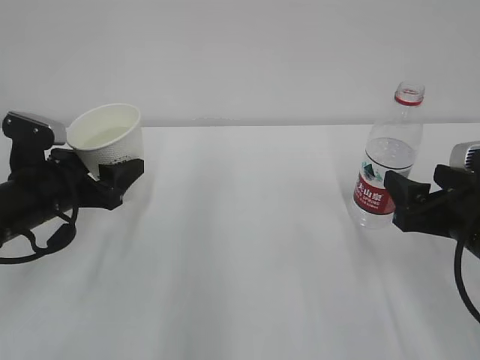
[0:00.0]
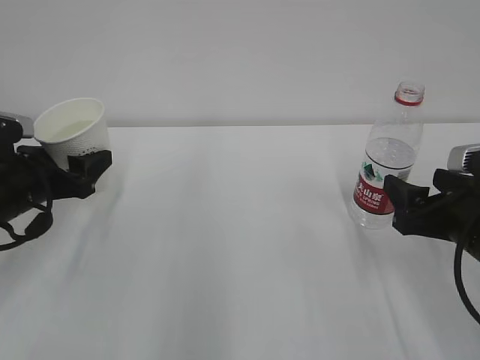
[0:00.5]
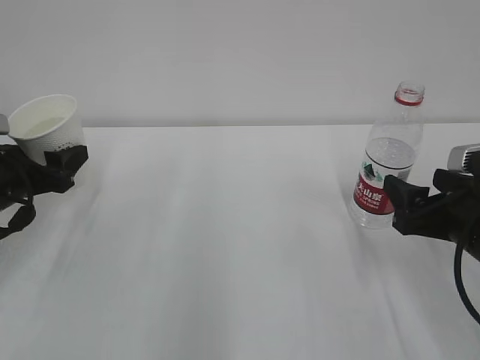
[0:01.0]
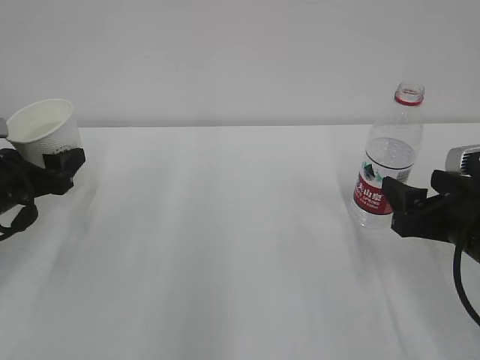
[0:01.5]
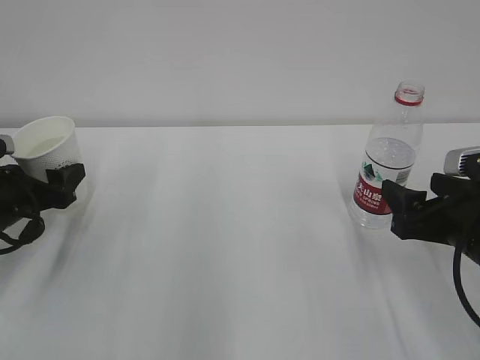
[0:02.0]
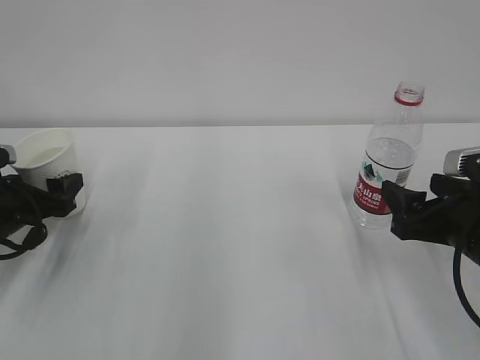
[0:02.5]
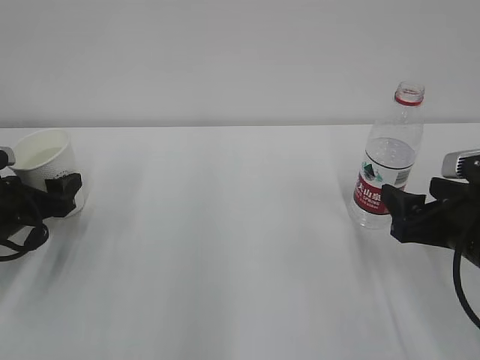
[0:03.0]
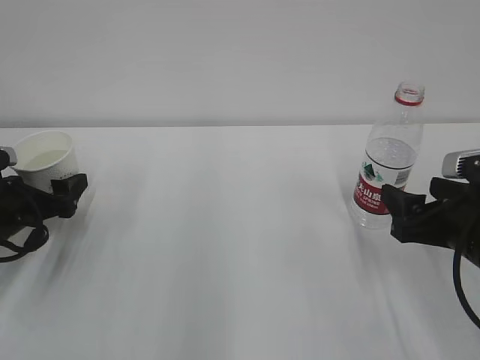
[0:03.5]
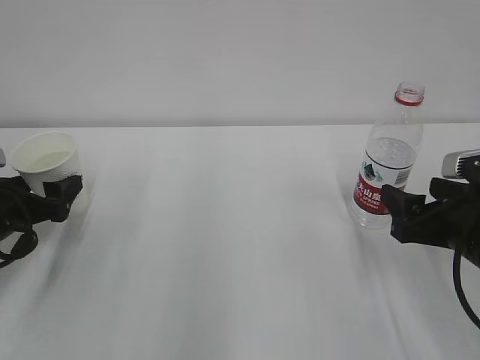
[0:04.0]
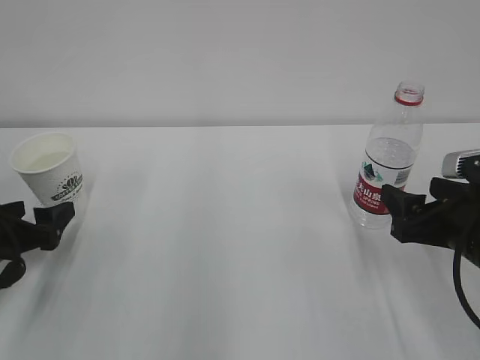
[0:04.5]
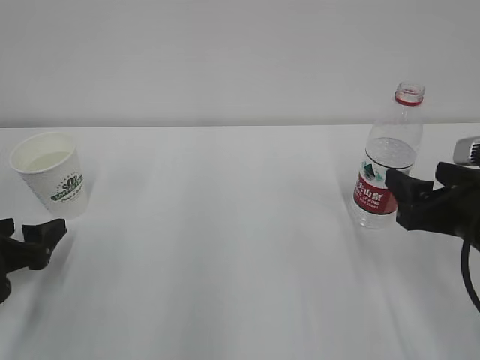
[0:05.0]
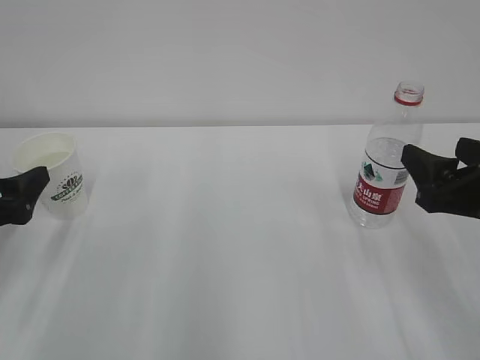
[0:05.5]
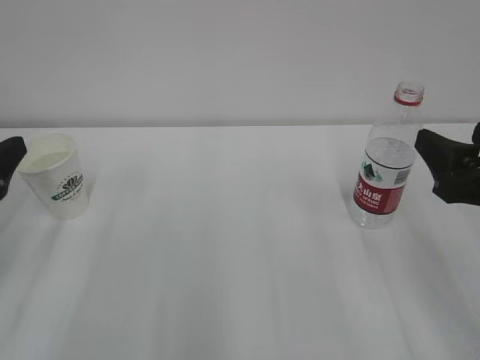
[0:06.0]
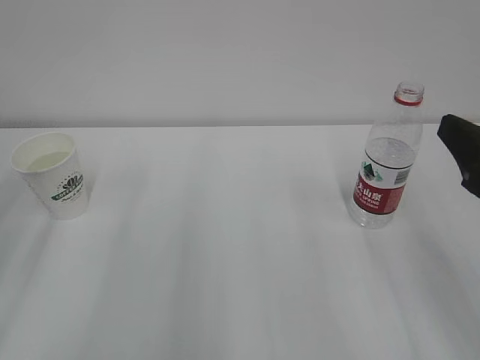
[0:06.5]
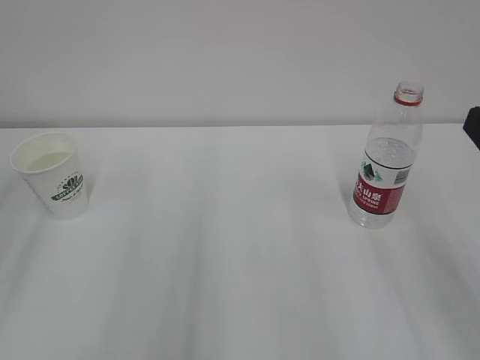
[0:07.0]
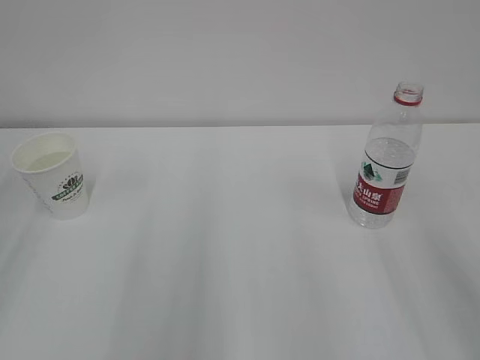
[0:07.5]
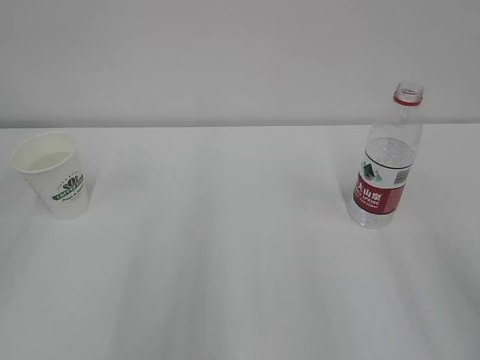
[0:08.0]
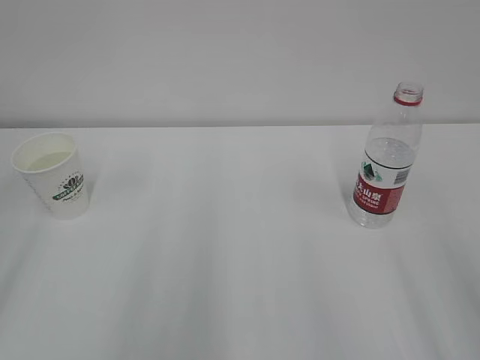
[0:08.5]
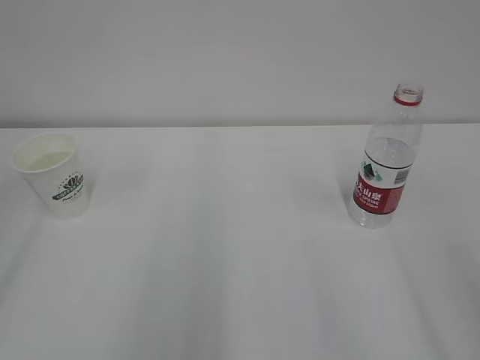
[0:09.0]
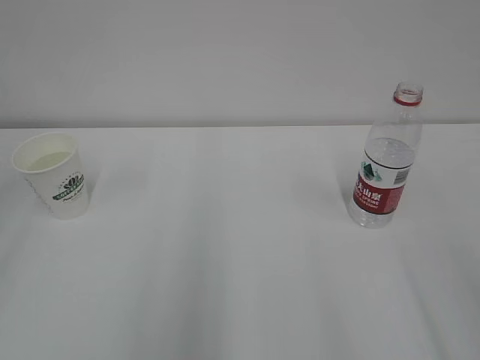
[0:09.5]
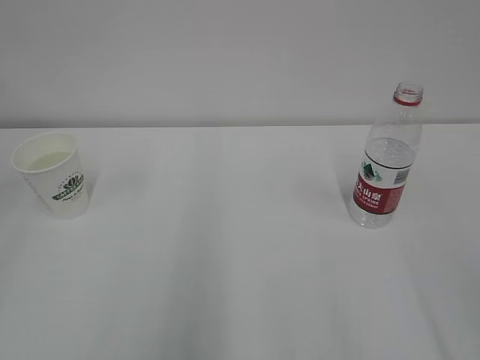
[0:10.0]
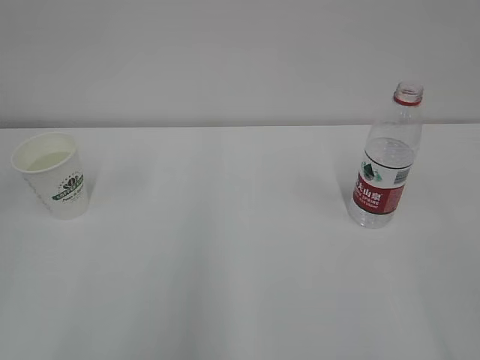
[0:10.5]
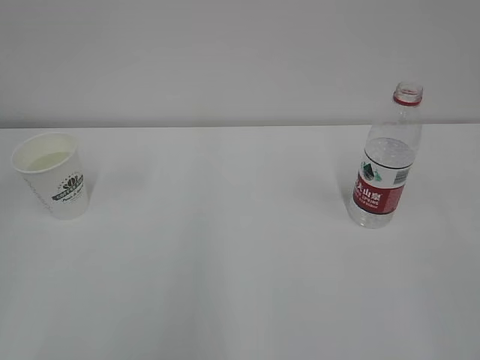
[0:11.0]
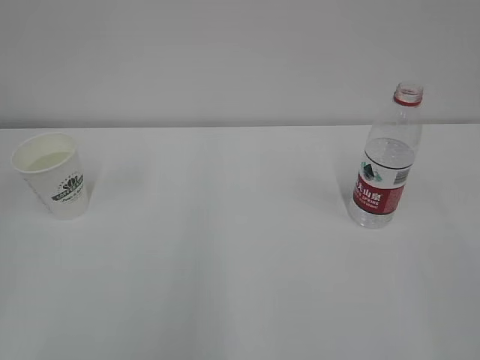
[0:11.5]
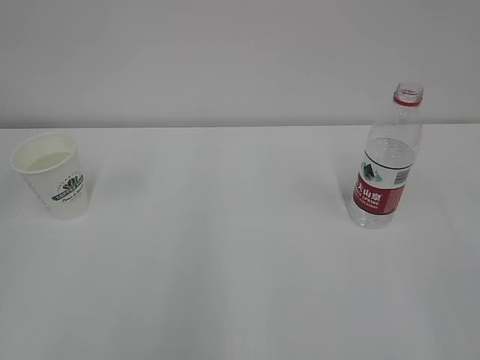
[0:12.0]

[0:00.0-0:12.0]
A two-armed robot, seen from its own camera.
0.0 to 2.0 s: The left gripper goes approximately 5 cm to the left.
2.0 to 4.0 s: The left gripper opens up.
4.0 to 6.0 s: The left gripper goes some 15 cm upward and backward, while the right gripper travels upward by some 10 cm.
6.0 to 8.0 s: The grippers both shift backward and upward by approximately 15 cm. The left gripper closes up.

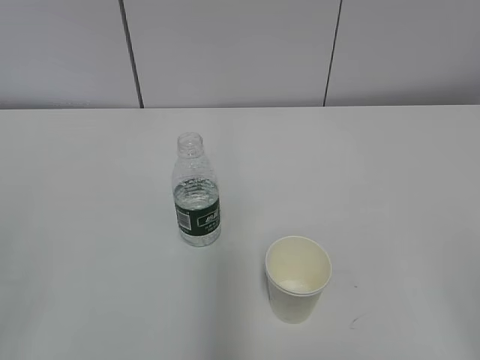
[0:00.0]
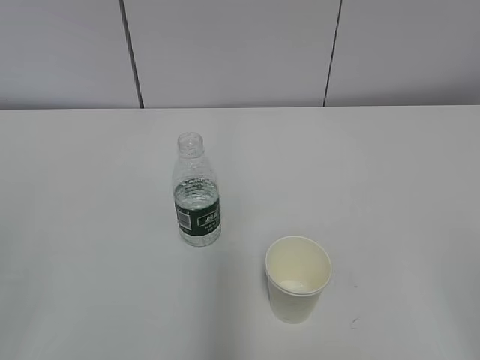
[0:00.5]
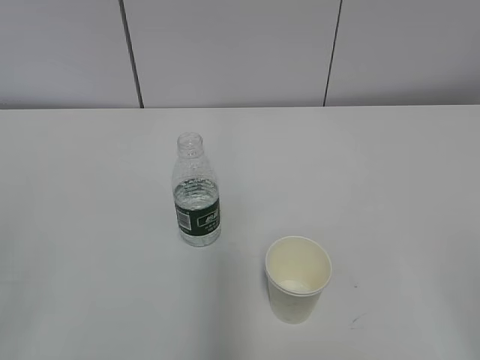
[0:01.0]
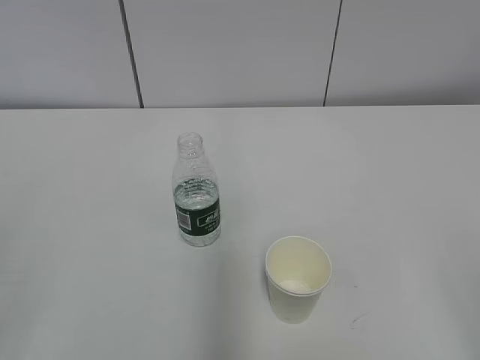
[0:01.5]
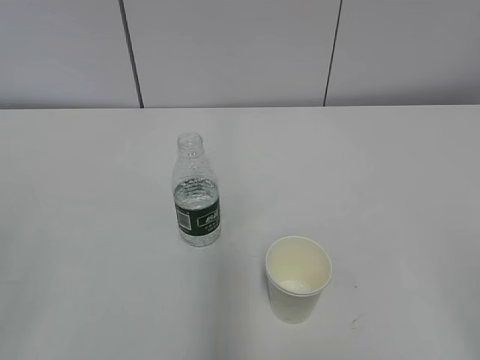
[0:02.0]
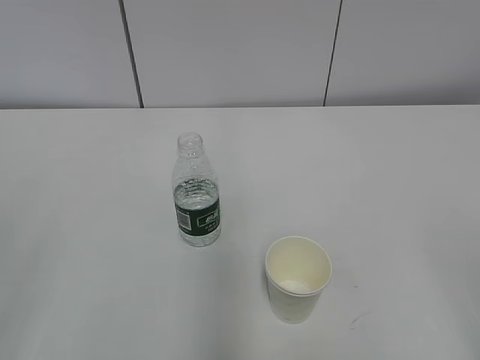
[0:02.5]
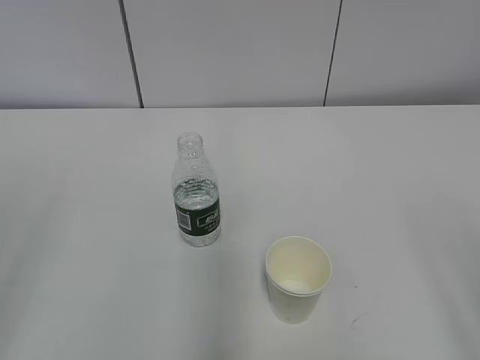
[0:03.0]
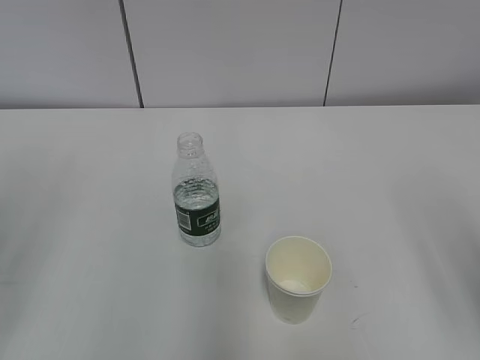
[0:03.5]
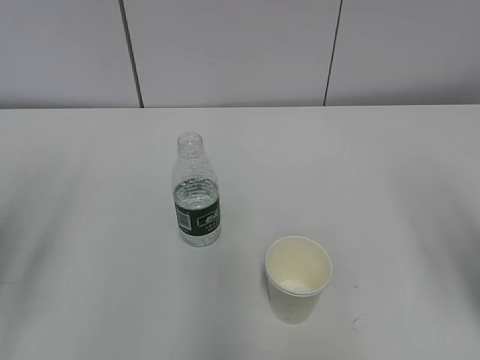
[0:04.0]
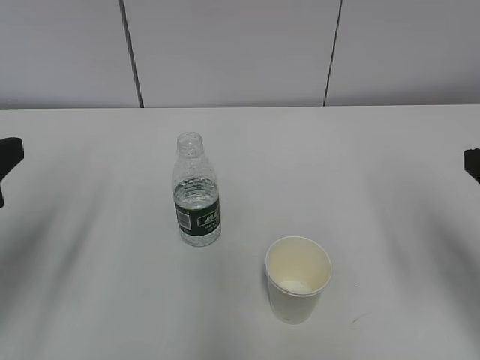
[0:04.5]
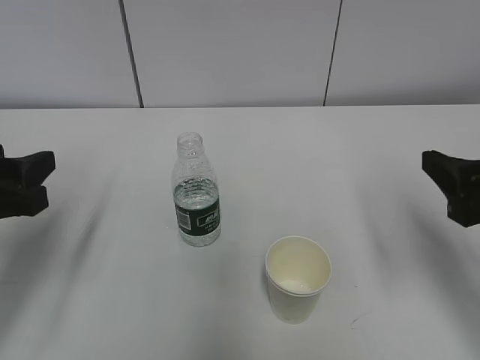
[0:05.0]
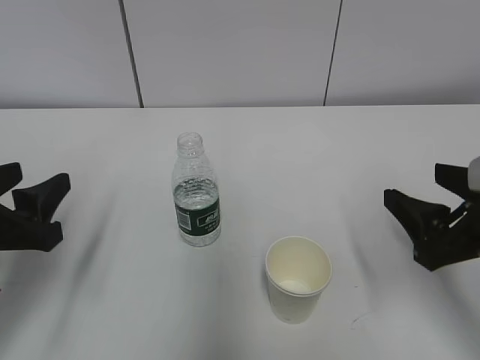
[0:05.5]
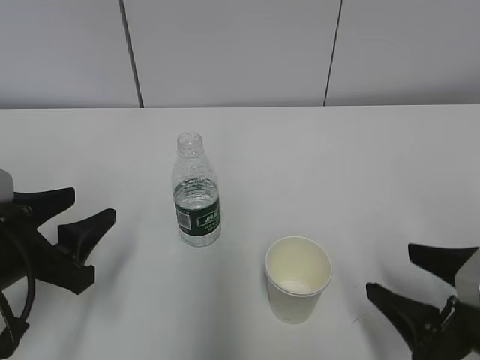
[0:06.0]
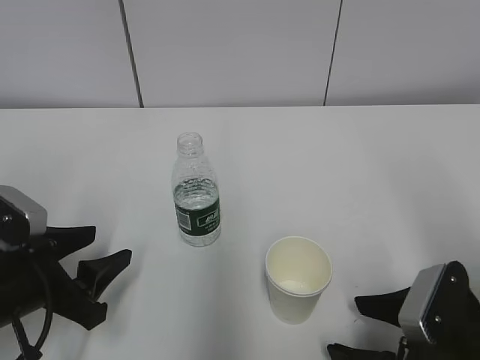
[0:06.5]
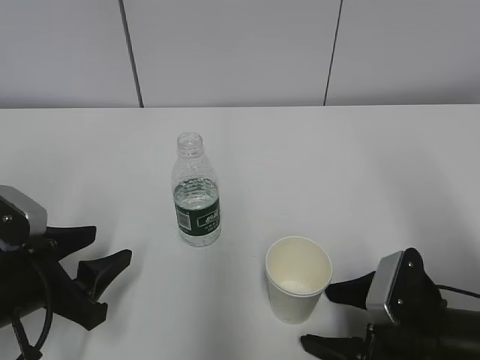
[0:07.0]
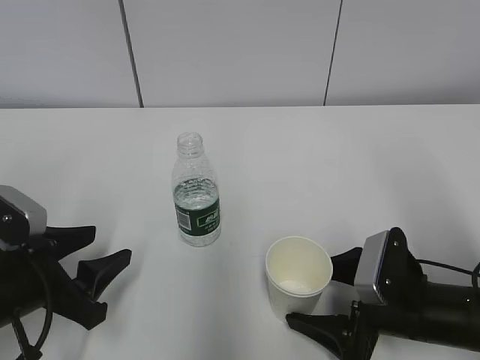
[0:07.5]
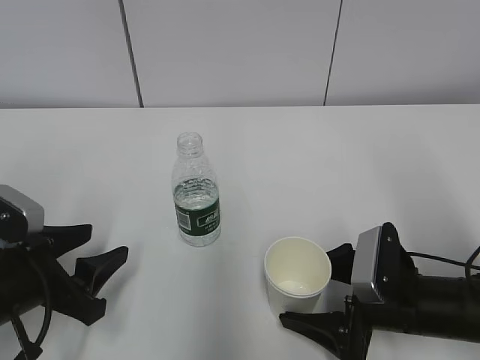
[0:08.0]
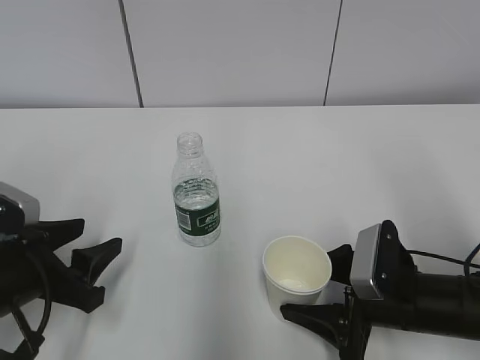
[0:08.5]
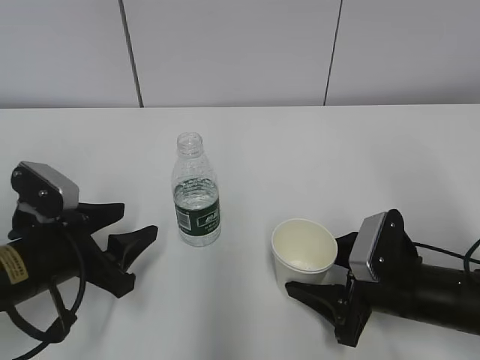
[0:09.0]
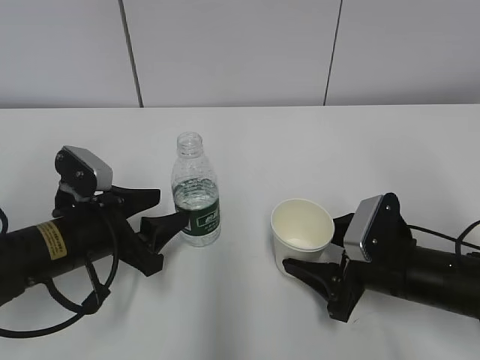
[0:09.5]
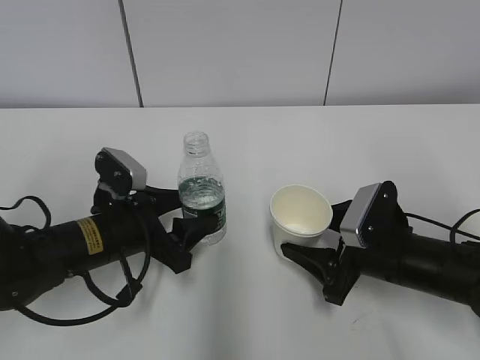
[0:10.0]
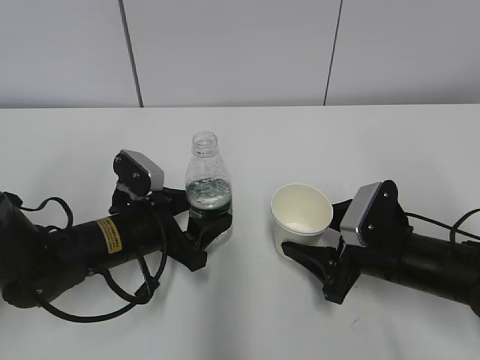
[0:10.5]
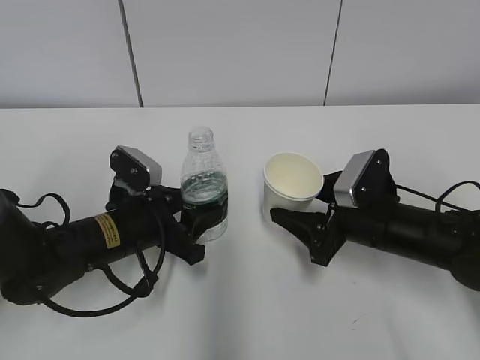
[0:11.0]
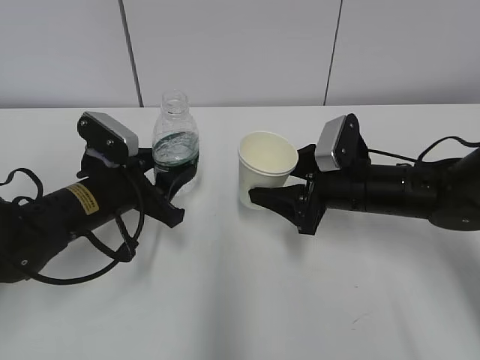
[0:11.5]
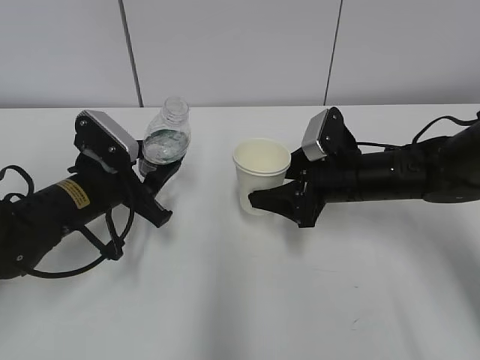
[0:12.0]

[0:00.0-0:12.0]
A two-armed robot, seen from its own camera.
Step, 0.0 to 6.5 s: Grab the paper cup with the right hand.
Step, 7.0 to 9.0 s: Grab the water bottle with the left hand.
2.0 to 4.0 s: The right gripper shifts some 15 cm forward.
4.0 to 6.0 s: The left gripper is displaced downward, forward and to the right by about 15 cm. Meanwhile the right gripper is displaced downward by about 15 cm.
6.0 to 8.0 s: The right gripper shifts roughly 10 cm forward and downward.
8.0 to 10.0 s: The left gripper is displaced forward and to the right by roughly 10 cm; the right gripper closes up.
10.0 to 12.0 s: The right gripper travels forward by roughly 10 cm. Meanwhile the left gripper ends up about 5 cm from where it was, and closes up.

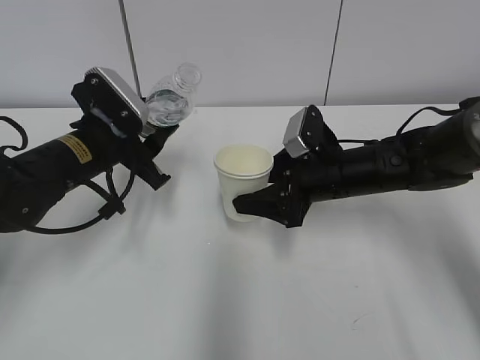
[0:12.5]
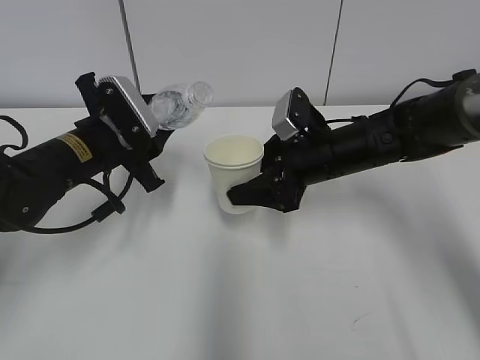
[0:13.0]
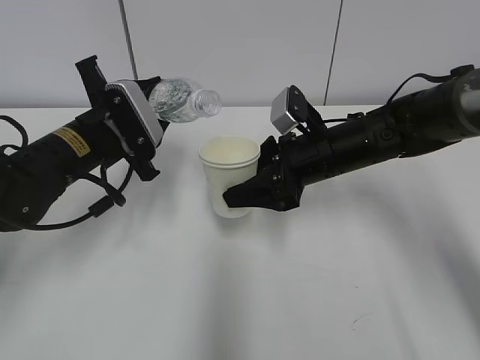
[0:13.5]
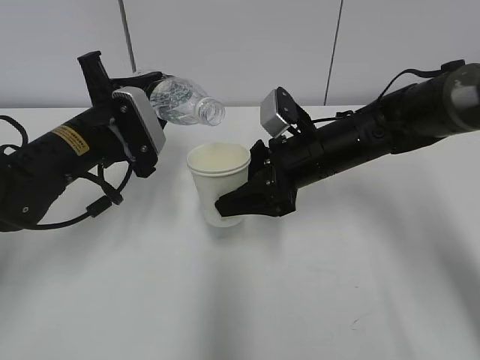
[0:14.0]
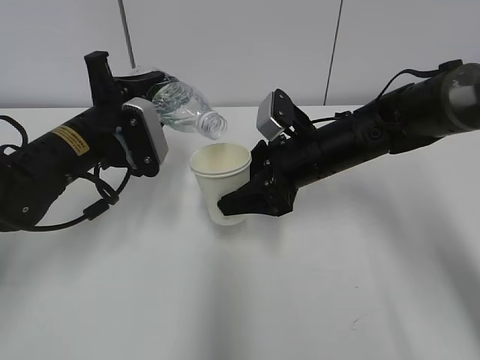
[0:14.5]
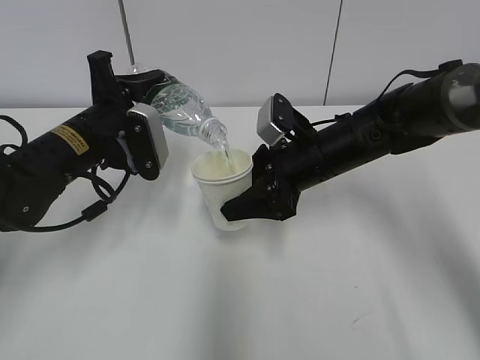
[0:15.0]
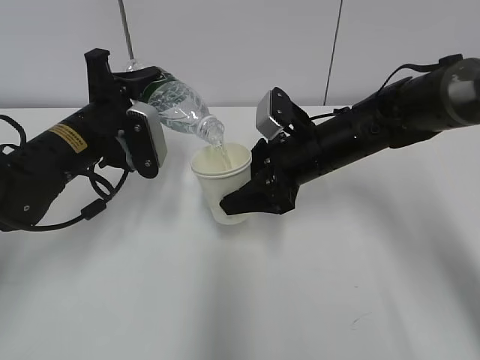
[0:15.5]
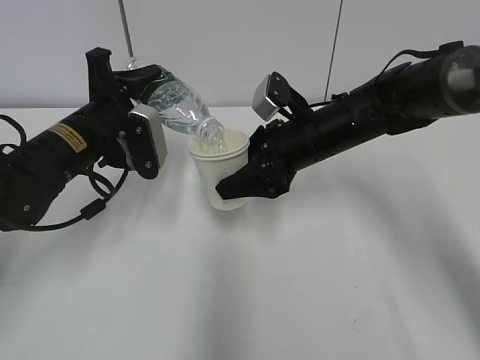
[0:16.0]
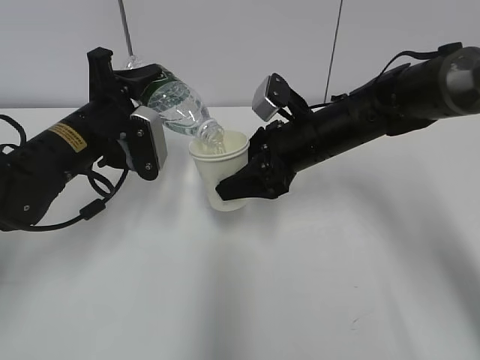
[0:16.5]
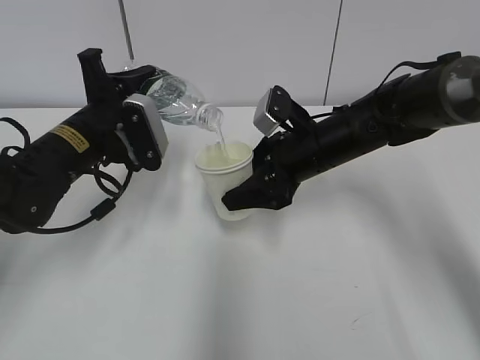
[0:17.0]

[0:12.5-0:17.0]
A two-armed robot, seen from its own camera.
Step, 12.5 to 14.0 s: Fill water with the right hand.
Step, 12.5 to 14.0 s: Pour water with the left hand.
Step, 14.5 to 15.0 s: Collect water with the left hand.
14.5 to 17.0 s: The grippers stay close to where they were, moving slightly.
